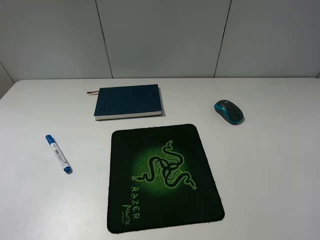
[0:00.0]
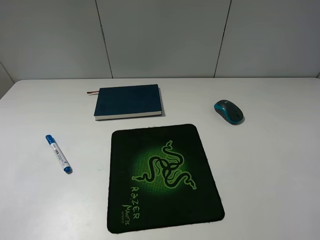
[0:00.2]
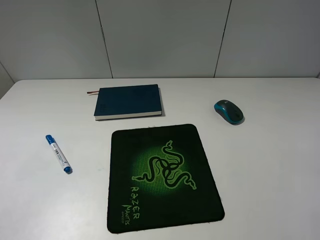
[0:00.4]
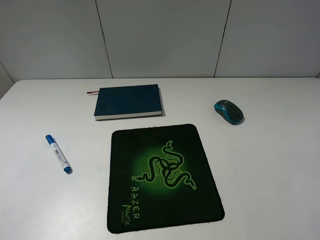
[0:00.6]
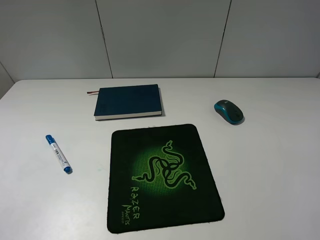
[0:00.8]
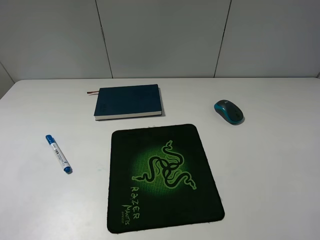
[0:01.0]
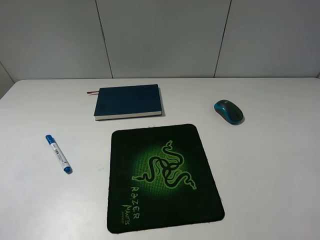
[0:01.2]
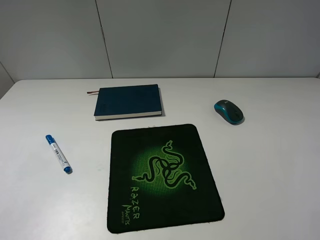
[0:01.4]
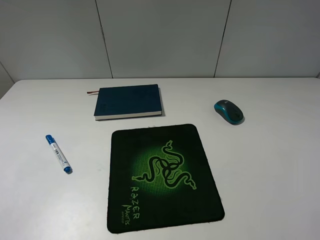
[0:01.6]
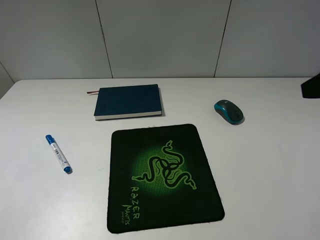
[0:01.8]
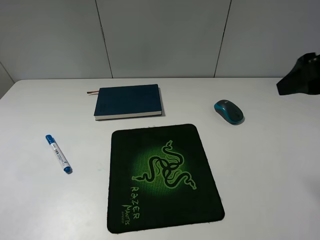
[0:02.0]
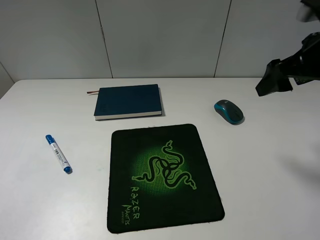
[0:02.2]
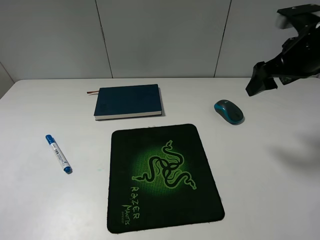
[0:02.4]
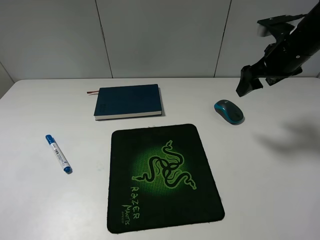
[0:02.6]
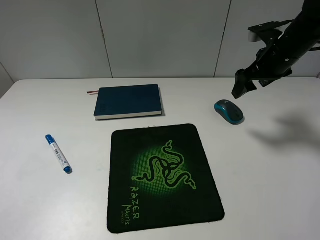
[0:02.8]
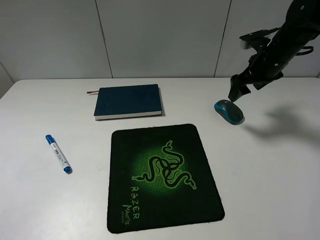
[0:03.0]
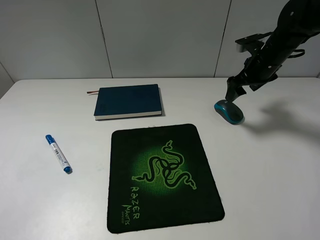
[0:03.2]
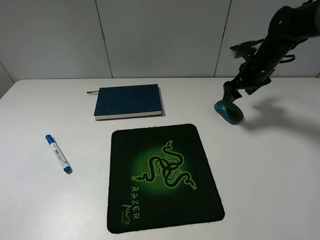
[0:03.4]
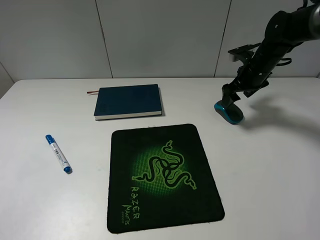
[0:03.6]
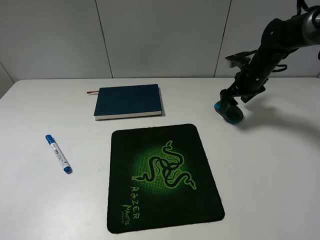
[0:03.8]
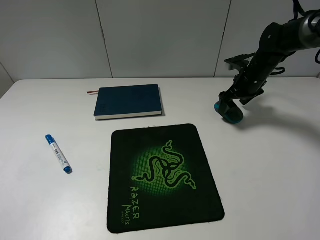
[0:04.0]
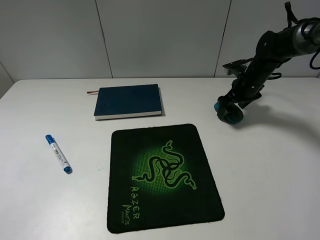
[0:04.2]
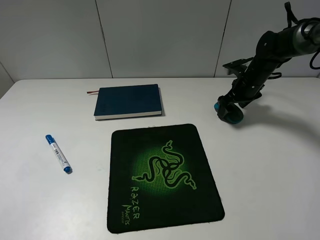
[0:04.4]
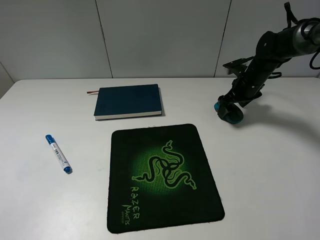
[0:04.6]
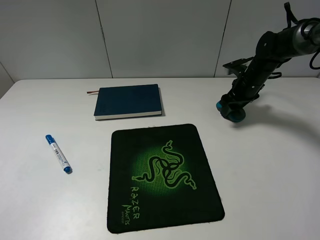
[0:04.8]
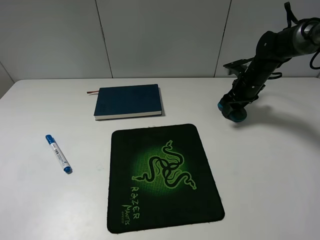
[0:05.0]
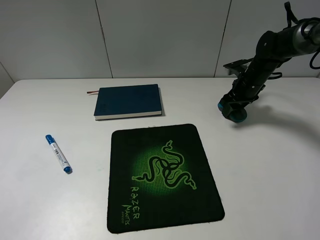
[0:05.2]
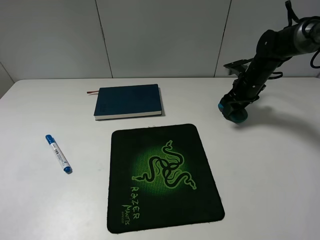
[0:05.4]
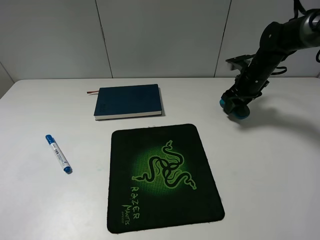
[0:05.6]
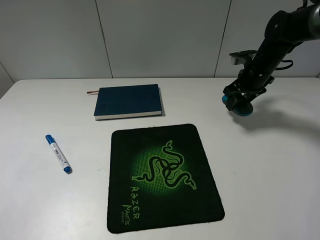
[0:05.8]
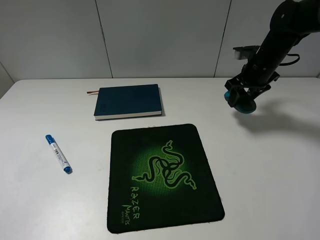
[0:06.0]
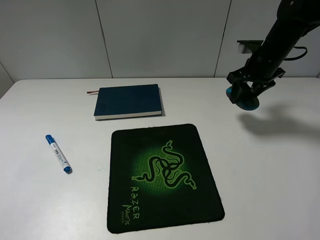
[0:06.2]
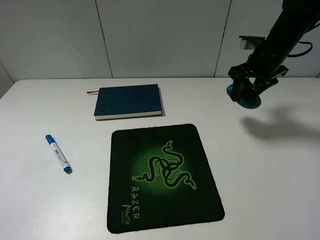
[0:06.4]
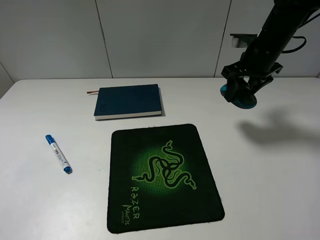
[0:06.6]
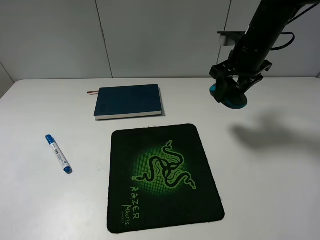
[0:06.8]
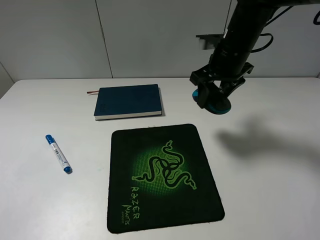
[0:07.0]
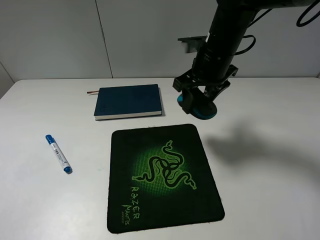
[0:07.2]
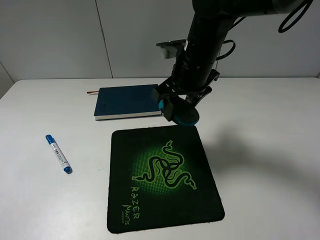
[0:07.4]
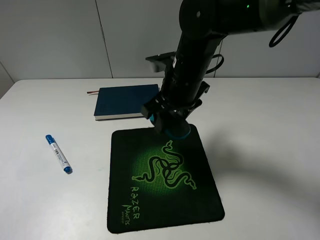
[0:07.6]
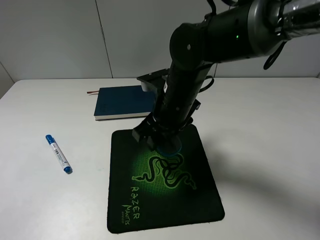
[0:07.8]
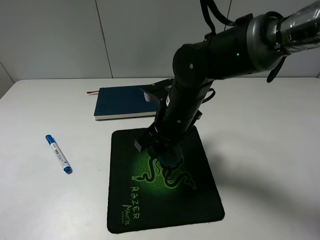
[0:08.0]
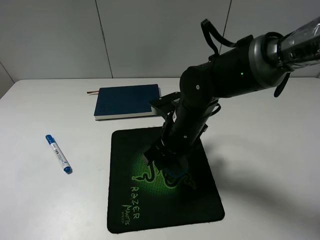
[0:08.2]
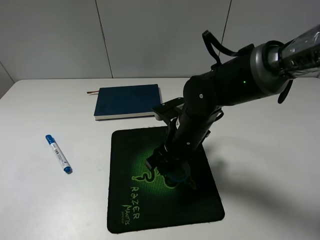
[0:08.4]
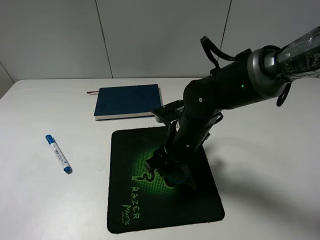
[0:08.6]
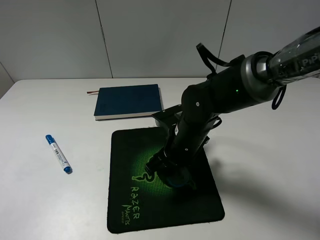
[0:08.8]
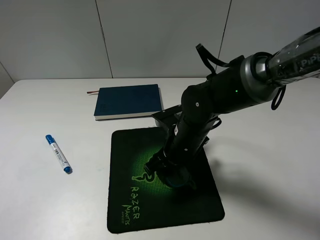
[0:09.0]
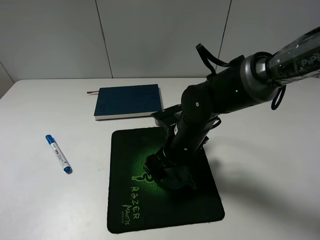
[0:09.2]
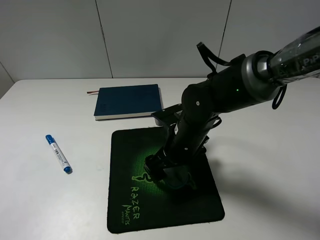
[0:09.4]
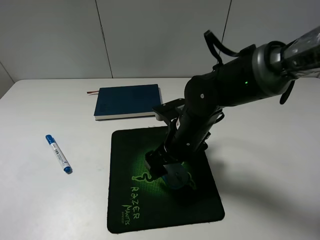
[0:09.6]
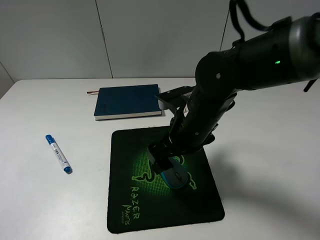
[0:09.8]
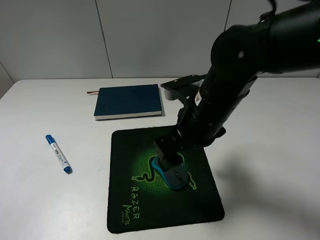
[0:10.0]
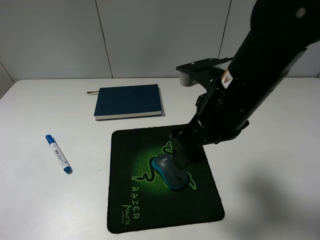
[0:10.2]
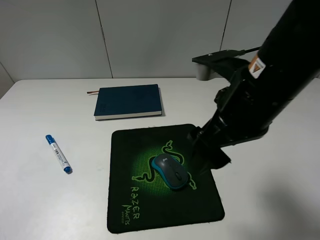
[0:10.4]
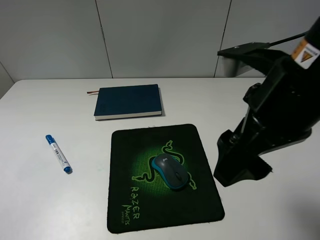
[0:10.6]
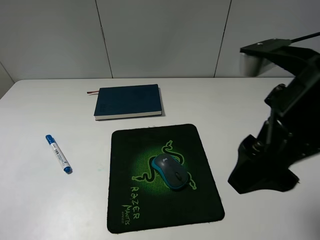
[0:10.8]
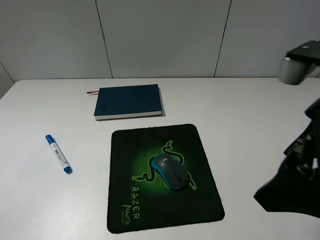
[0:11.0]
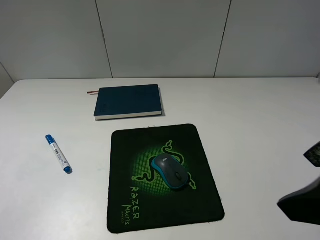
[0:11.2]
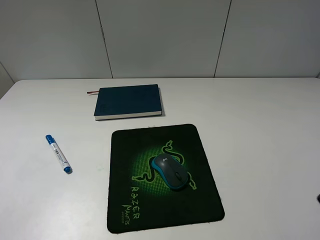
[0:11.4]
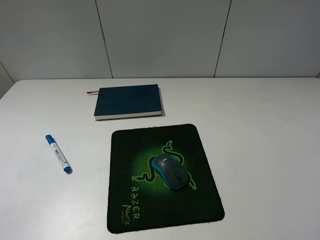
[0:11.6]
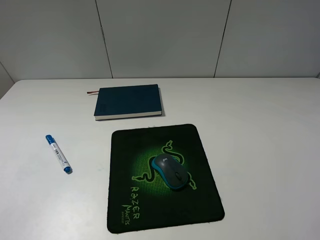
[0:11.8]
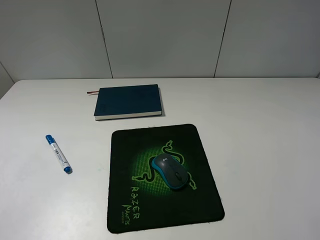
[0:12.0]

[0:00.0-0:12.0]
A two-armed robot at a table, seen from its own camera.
Step, 0:00.0 to 0:05.2: Grasp the mouse with the right gripper.
Step, 0:05.4 to 0:09.6: Place the mouse on the mouse pad with the right gripper.
0:01.6 to 0:03.0: The right gripper travels forward and downward by about 35 cm.
0:03.0 to 0:04.4: The right gripper is displaced downward by some 10 cm.
0:04.4 to 0:06.0: The right gripper is displaced upward by some 5 cm, and closes up.
0:06.0 to 0:07.6: The right gripper is displaced to the left and backward by about 25 cm.
0:07.6 to 0:09.0: The right gripper travels downward by approximately 10 cm.
0:09.0 to 0:10.4: The right gripper heads upward and backward, covering roughly 20 cm, and opens its fingers.
0:10.4 to 0:12.0: The right gripper shifts approximately 25 cm to the right and backward.

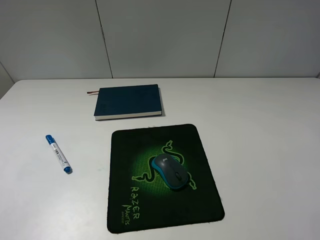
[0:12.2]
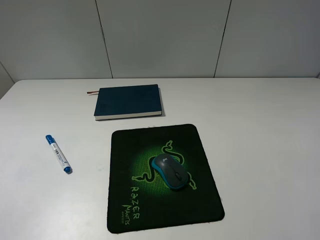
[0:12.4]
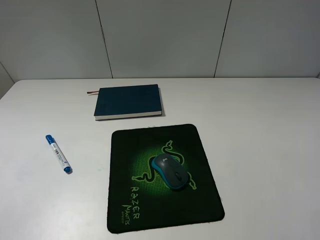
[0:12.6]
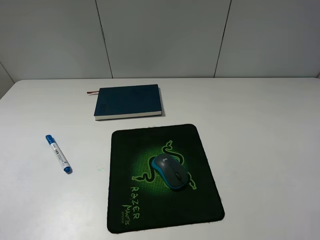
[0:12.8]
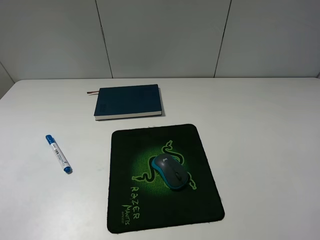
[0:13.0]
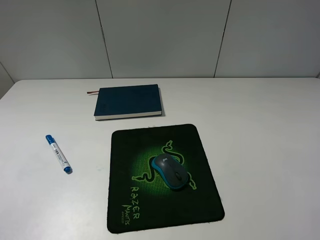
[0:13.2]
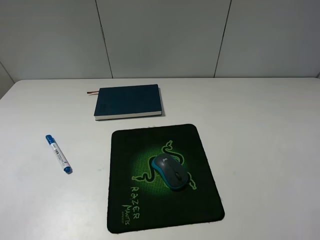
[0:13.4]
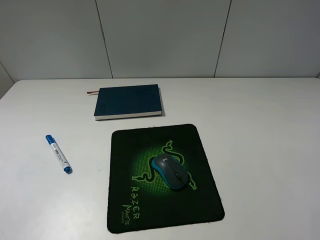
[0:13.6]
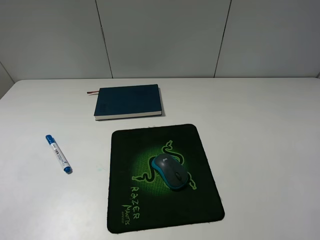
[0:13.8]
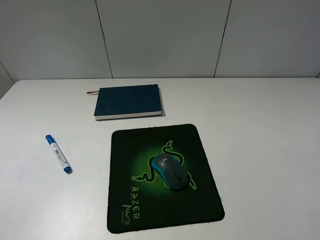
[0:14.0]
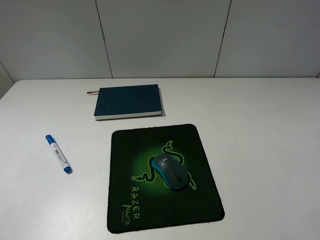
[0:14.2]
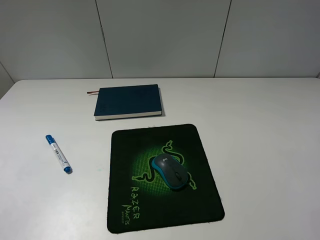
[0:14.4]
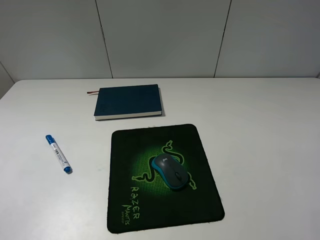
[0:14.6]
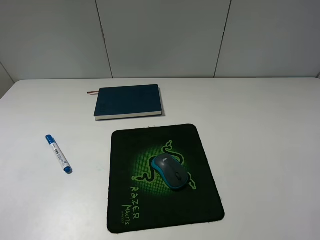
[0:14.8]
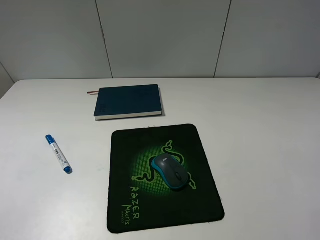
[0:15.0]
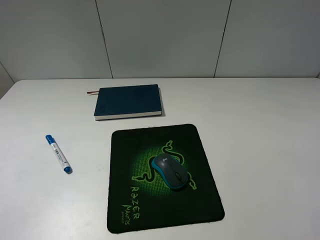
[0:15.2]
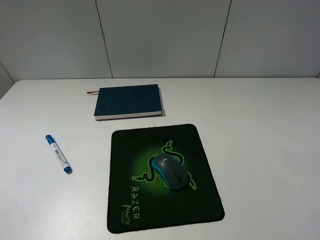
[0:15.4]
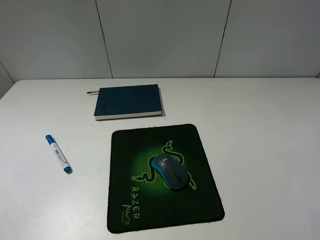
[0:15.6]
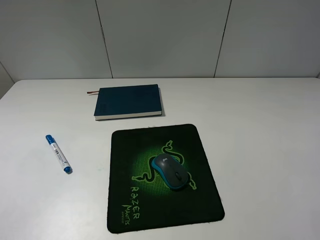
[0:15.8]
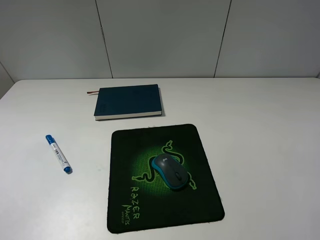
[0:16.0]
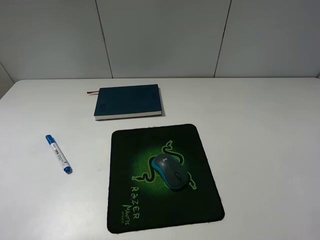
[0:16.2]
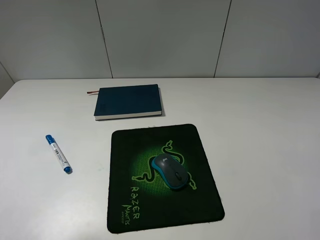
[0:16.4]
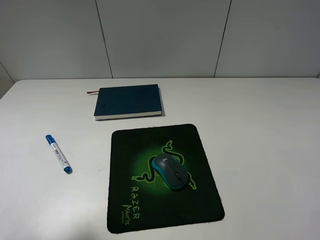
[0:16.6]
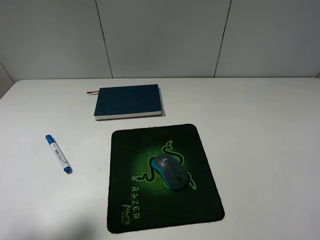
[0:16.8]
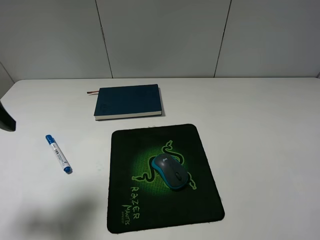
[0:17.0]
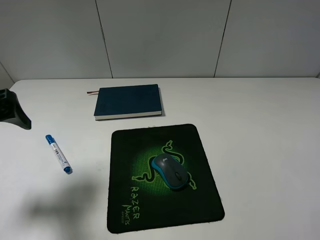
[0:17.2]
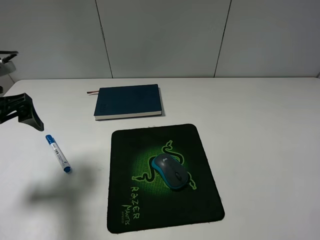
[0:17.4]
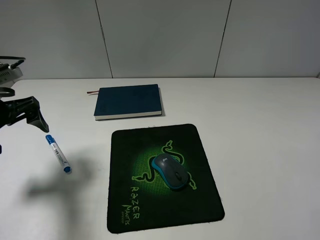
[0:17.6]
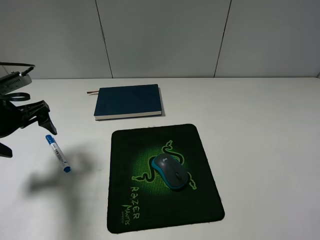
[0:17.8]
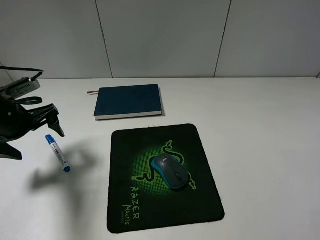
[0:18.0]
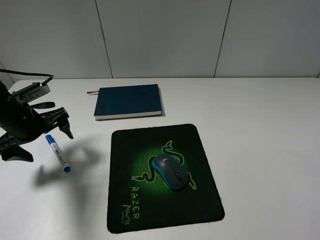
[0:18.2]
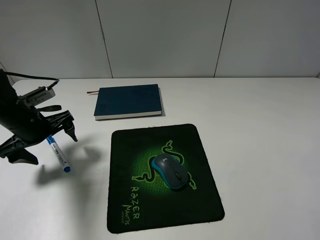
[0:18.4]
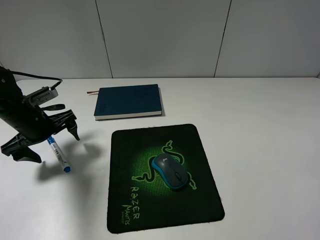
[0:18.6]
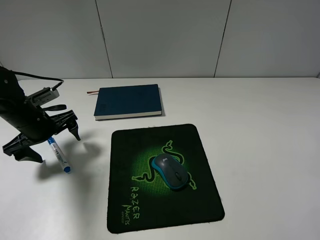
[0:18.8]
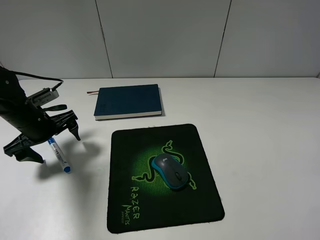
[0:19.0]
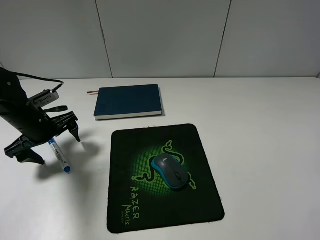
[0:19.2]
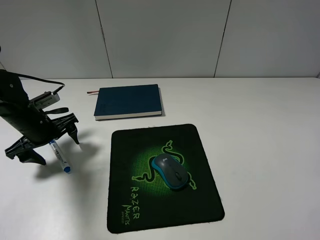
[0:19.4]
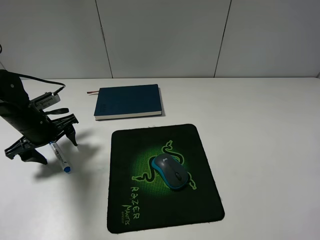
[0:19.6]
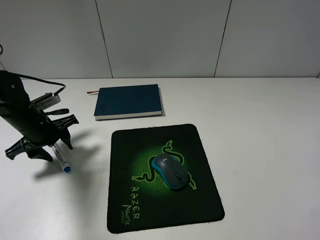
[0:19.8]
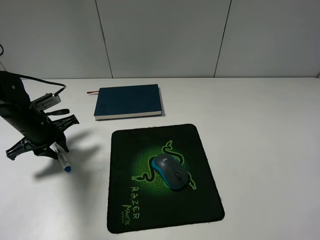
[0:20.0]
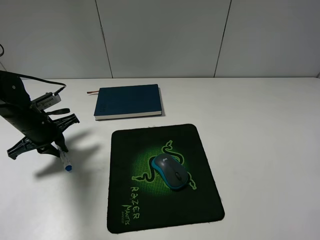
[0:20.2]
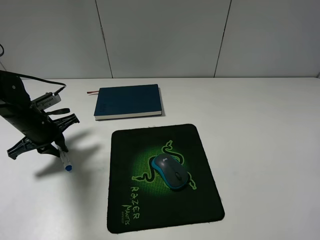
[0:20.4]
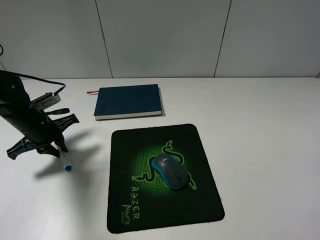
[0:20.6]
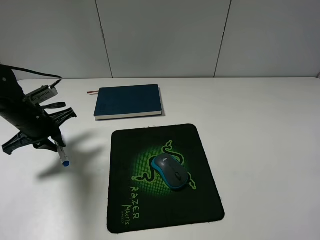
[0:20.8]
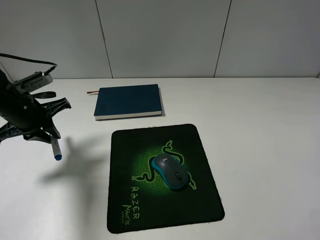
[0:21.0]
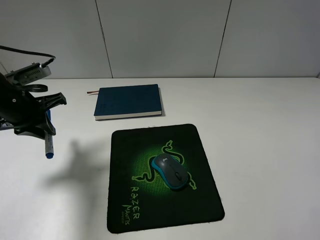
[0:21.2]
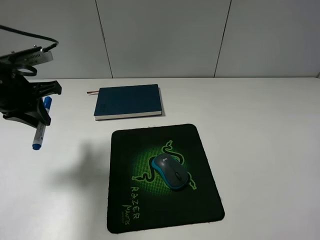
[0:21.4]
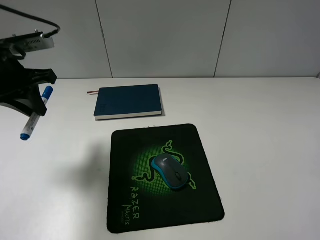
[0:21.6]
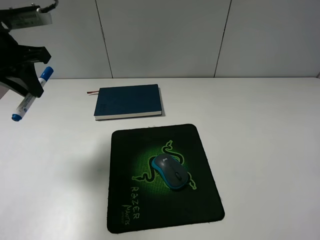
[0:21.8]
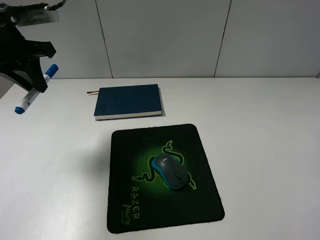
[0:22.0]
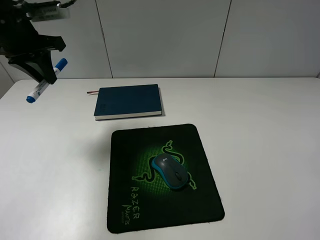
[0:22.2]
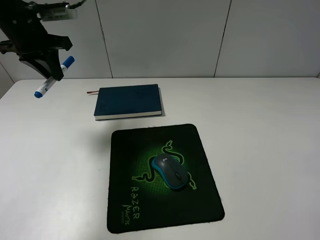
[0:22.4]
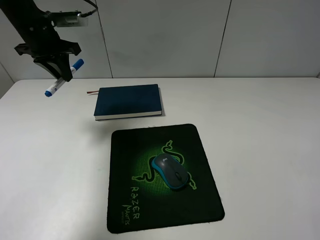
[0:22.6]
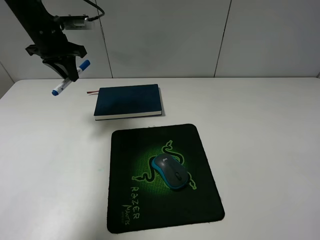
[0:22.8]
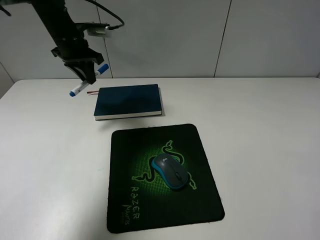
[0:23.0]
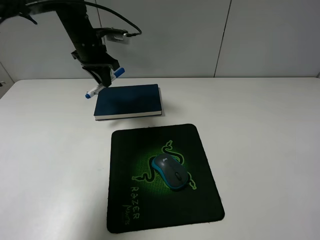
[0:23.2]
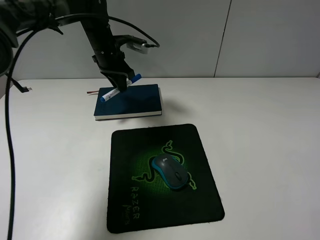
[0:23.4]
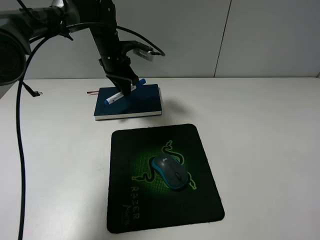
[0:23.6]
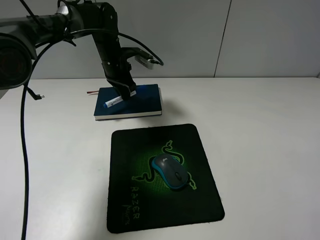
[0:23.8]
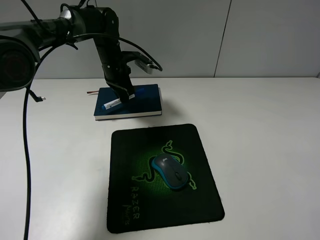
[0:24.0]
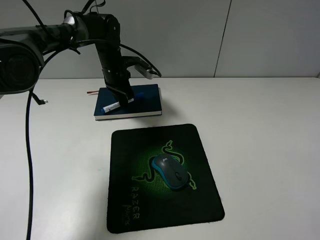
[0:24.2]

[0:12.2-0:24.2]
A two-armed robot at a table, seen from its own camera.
Step, 0:12.2 to 0:20.2: Grasp the marker with the left gripper.
0:13.8 to 0:15.2: Neither gripper changes place.
0:15.2 to 0:16.6: The left gripper is displaced forward by about 10 cm.
0:16.6 to 0:18.2: The left gripper travels downward and forward by roughly 25 cm.
0:18.2 to 0:19.8: The left gripper closes.
0:19.8 to 0:21.2: The left gripper travels upward by some 10 cm, and closes.
0:21.2 to 0:22.6: The left gripper shifts roughly 15 cm forward and upward.
0:22.6 to 0:24.2: The left gripper travels to the right, downward and forward by approximately 20 cm.
